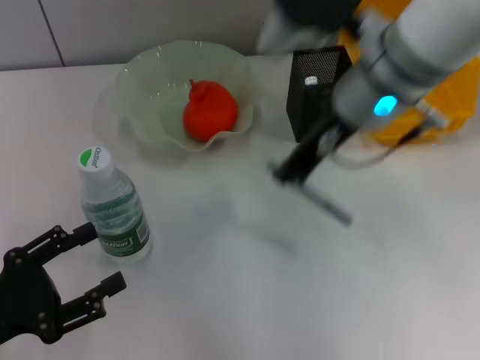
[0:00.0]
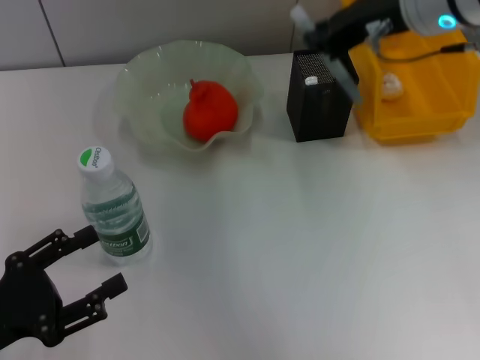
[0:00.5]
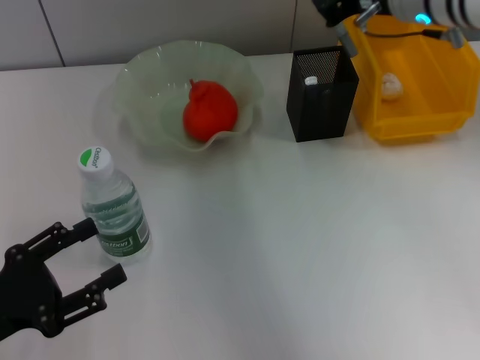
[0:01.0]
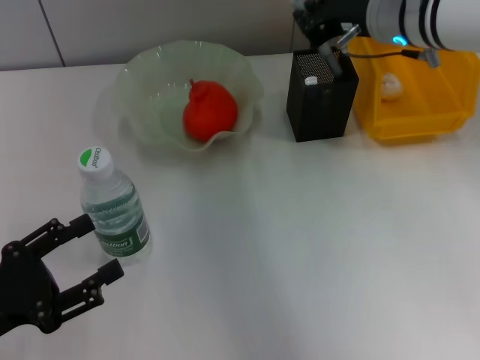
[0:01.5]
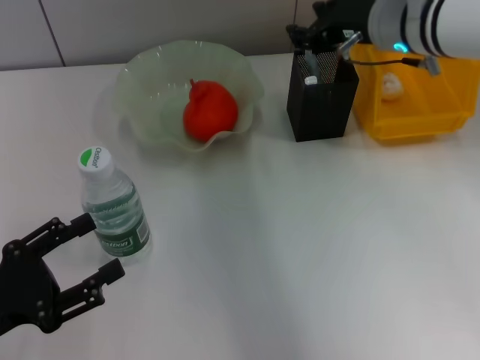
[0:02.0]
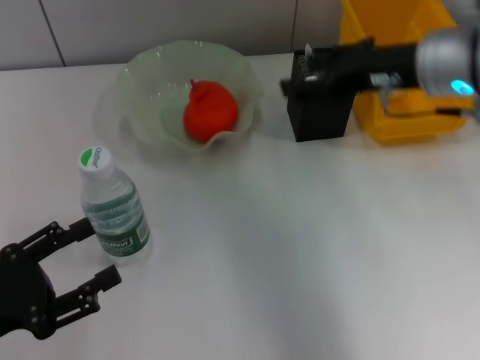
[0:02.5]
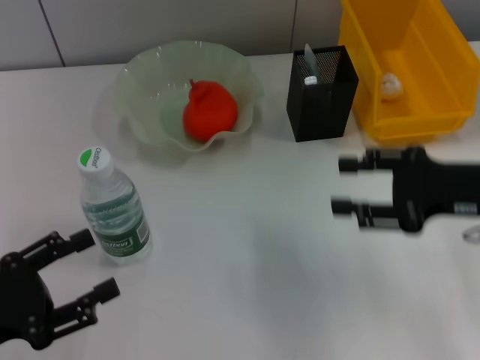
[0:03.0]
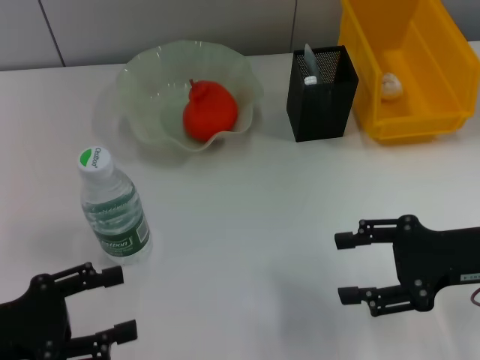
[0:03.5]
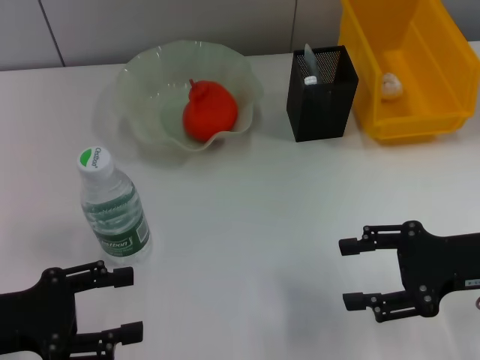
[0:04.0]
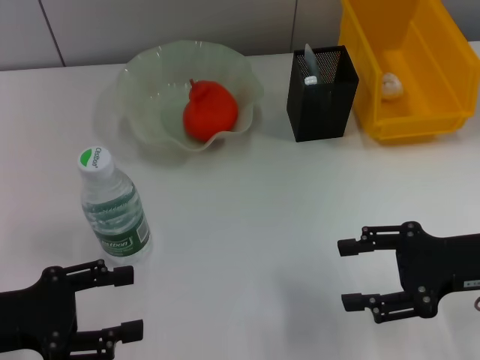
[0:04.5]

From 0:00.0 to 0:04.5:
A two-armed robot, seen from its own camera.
Step, from 0:00.0 to 0:02.0: Place the gray glue into the pen holder with the right hand.
From 0:00.0 to 0:02.0: The right gripper shifts approximately 10 cm forward and to the right.
From 0:02.0 to 0:04.5: The right gripper moves backward, to the right and downward, some 25 cm, and opens up.

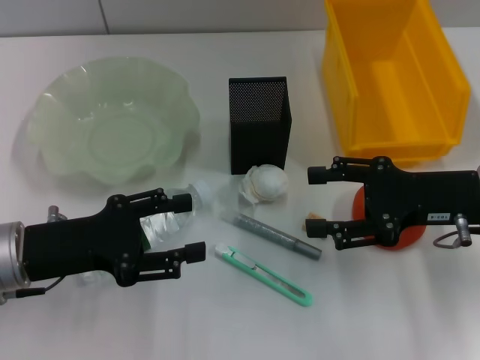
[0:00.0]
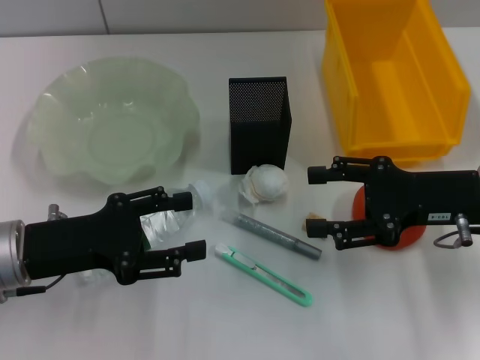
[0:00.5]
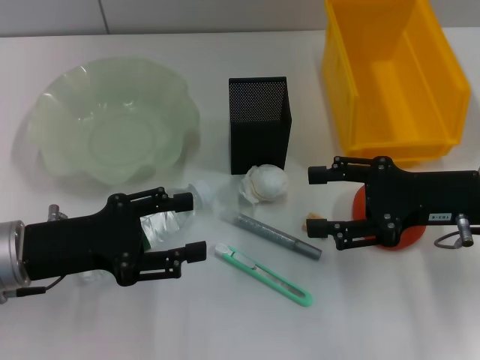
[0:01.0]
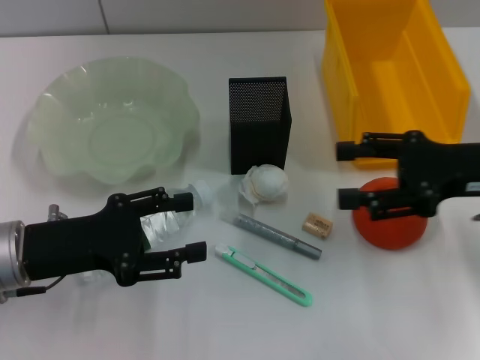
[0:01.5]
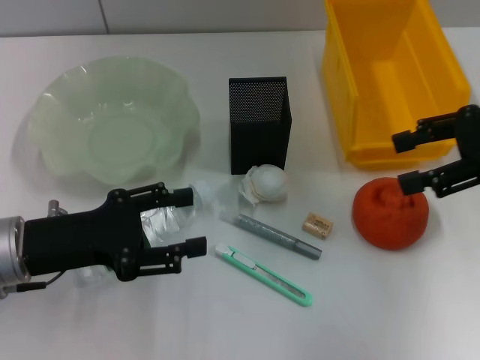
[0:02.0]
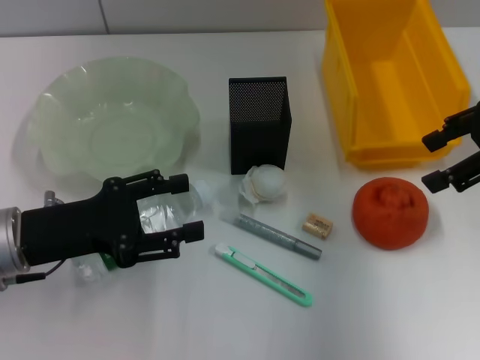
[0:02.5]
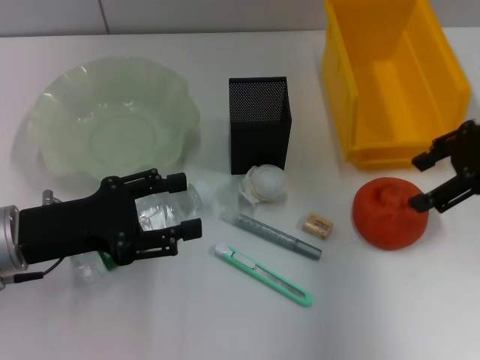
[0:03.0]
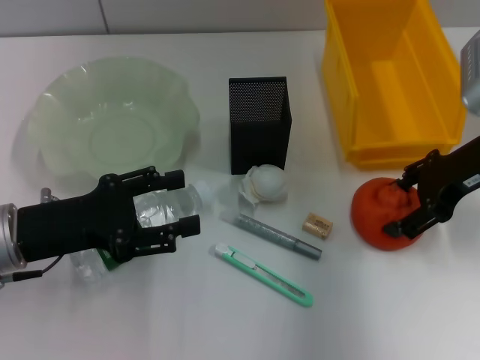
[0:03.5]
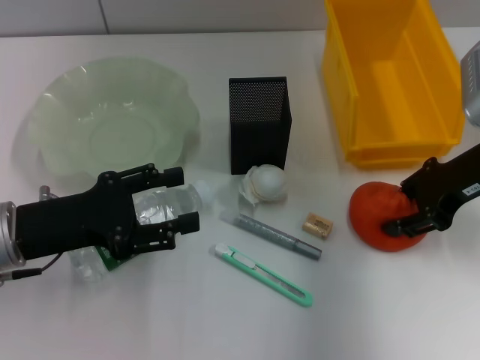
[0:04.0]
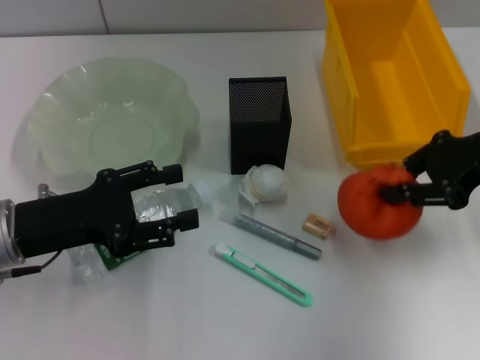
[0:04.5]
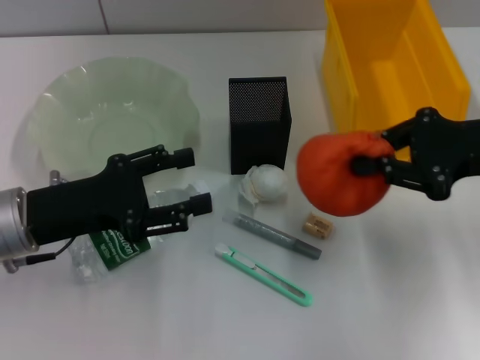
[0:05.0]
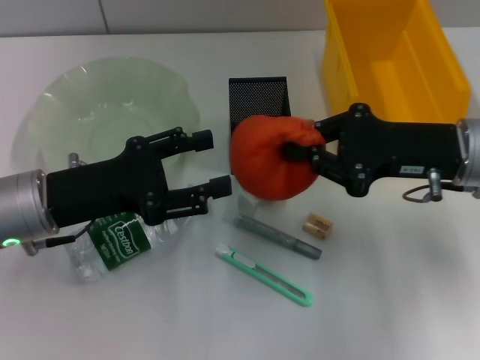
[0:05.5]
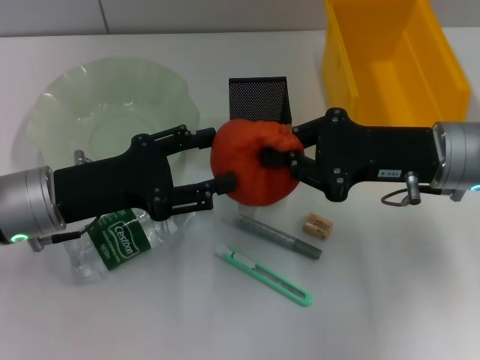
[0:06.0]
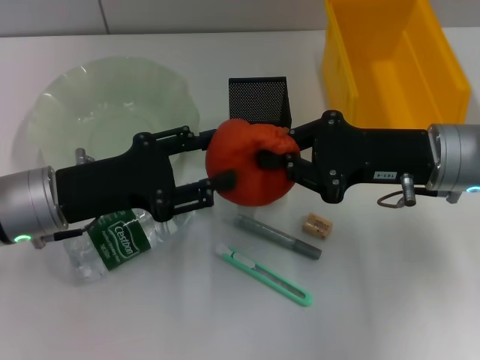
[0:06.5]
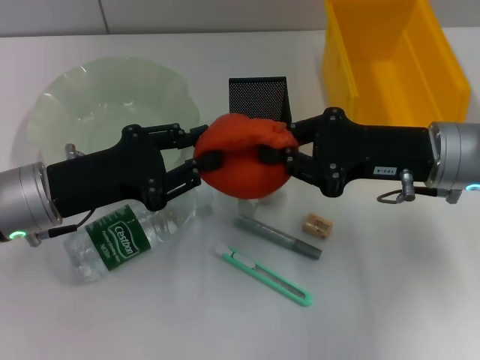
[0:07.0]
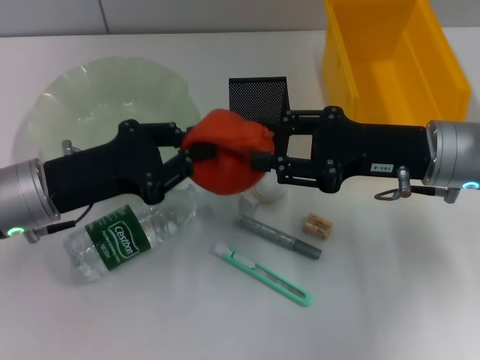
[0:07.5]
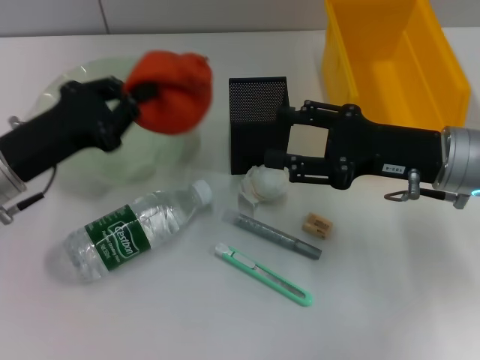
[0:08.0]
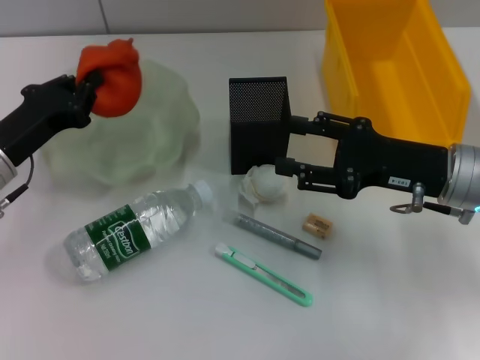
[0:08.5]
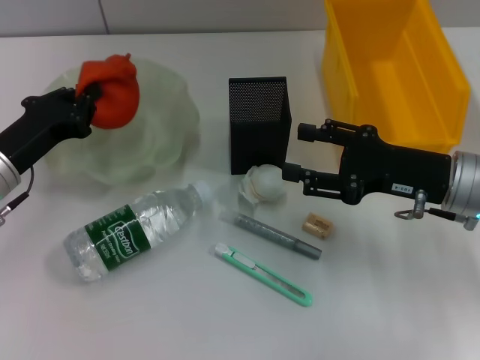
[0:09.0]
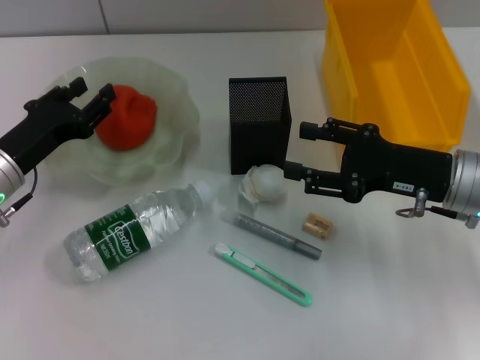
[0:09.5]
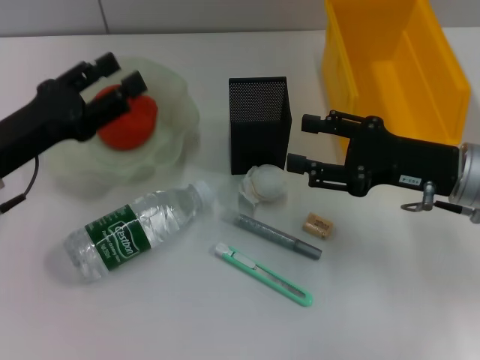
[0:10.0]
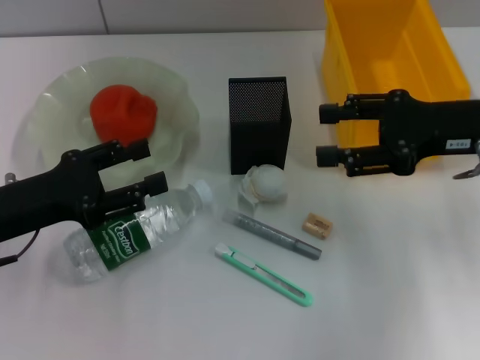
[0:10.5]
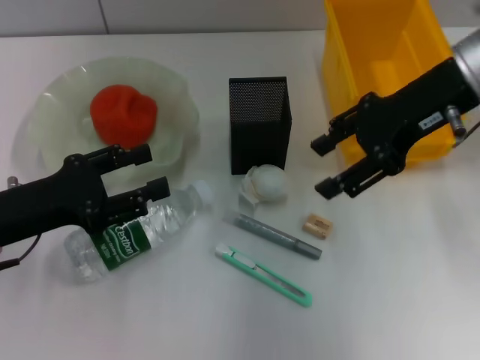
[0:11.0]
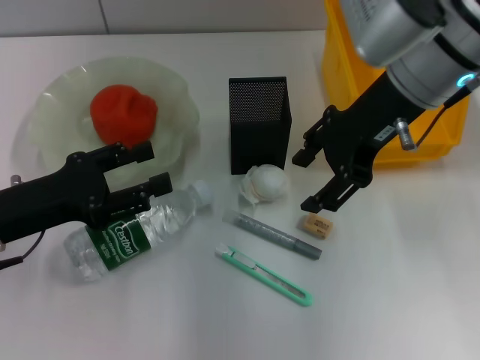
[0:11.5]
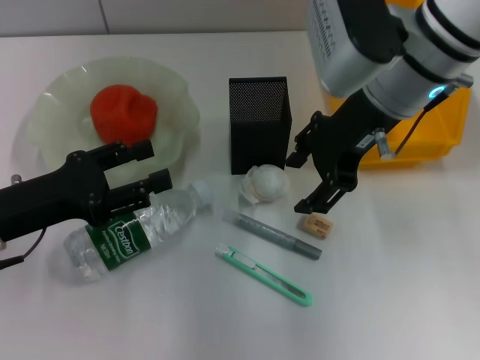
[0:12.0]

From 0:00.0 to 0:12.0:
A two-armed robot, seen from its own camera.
Step, from 0:00.0 to 0:04.0: Grab the orange with the right hand.
Step, from 0:04.5 to 0:07.5: Pass the orange from the right hand to the left hand.
Step, from 0:08.0 to 0:09.0: Place the orange into the fruit bowl with the left hand.
From 0:00.0 to 0:02.0: The right gripper is displaced upward and to the right by some 10 cm.
From 0:02.0 to 0:04.0: The right gripper is displaced downward by some 5 cm.
From 0:04.0 to 0:06.0: The right gripper is displaced to the left by about 5 cm, and closes up.
From 0:06.0 to 0:08.0: The right gripper opens its fingers. The left gripper closes its fingers.
From 0:08.0 to 0:10.0: The left gripper opens up.
From 0:10.0 to 0:12.0: The right gripper travels upward, to the left and forward by approximately 15 cm.

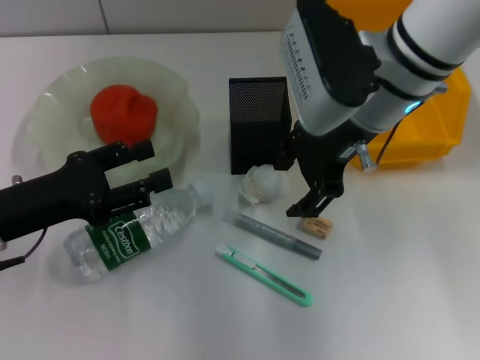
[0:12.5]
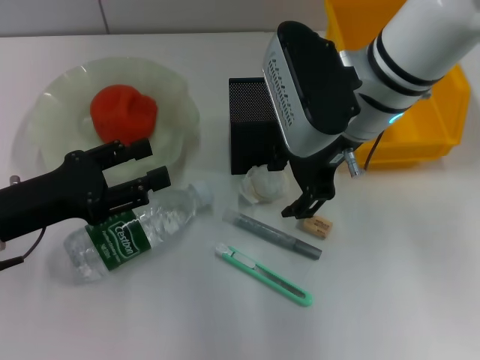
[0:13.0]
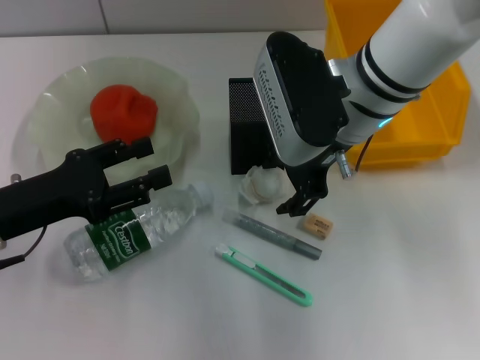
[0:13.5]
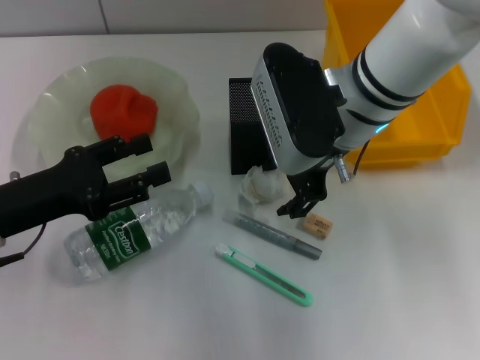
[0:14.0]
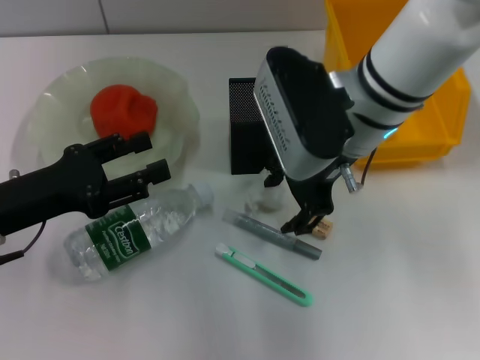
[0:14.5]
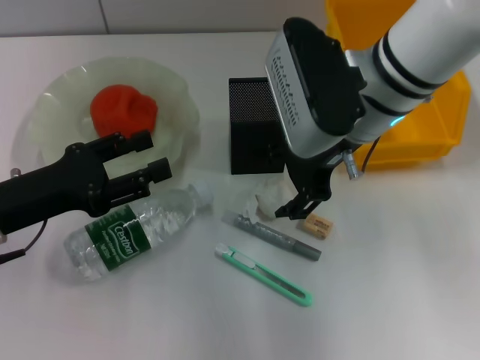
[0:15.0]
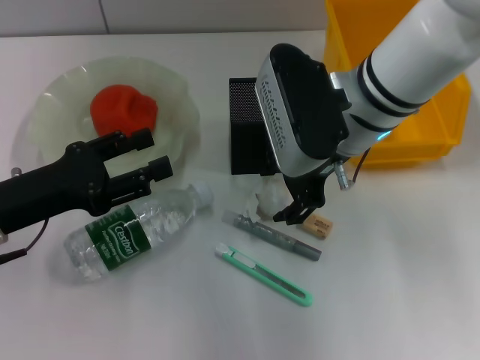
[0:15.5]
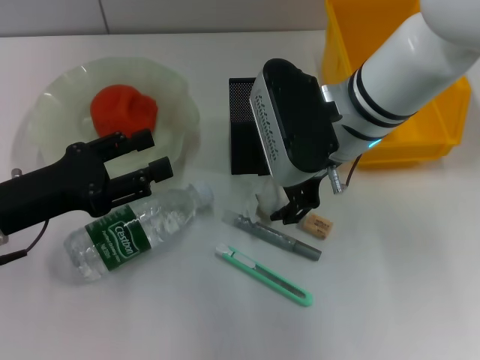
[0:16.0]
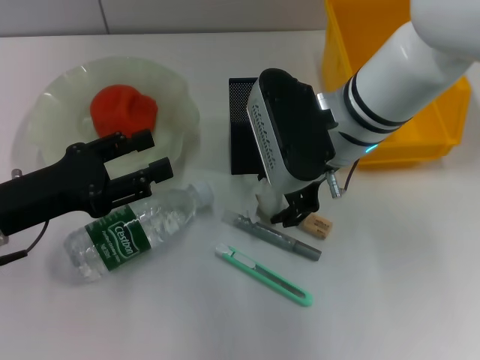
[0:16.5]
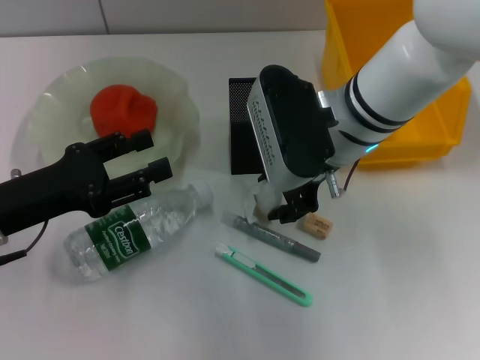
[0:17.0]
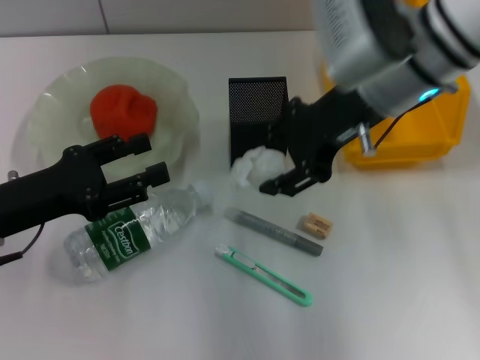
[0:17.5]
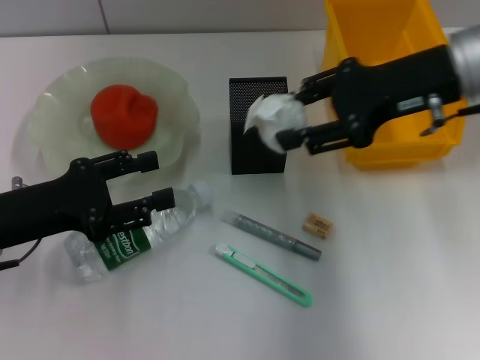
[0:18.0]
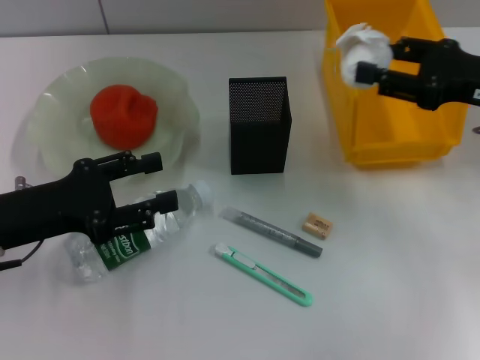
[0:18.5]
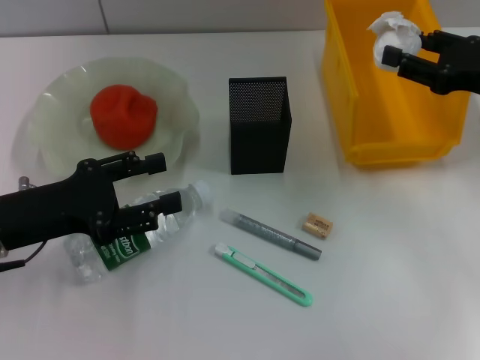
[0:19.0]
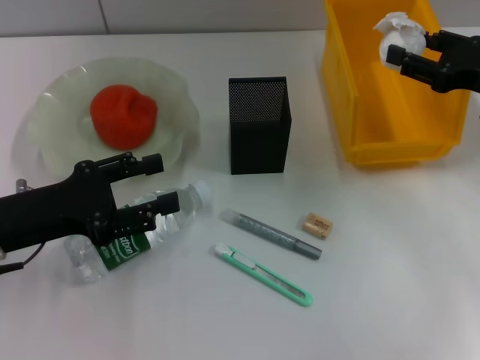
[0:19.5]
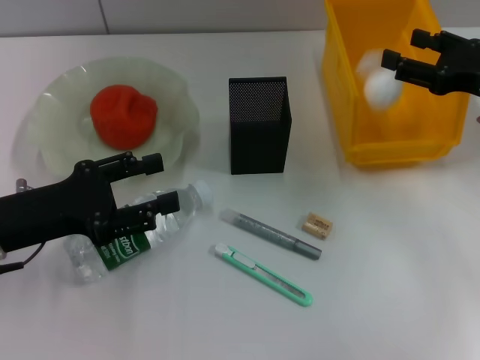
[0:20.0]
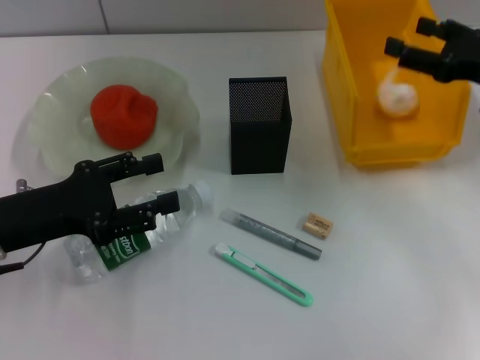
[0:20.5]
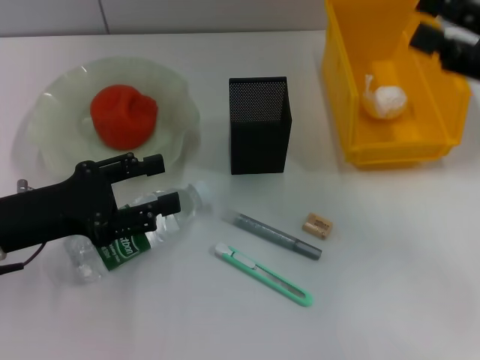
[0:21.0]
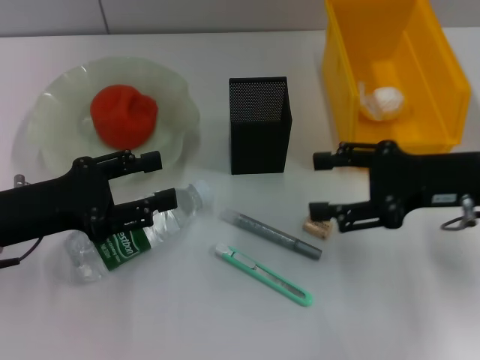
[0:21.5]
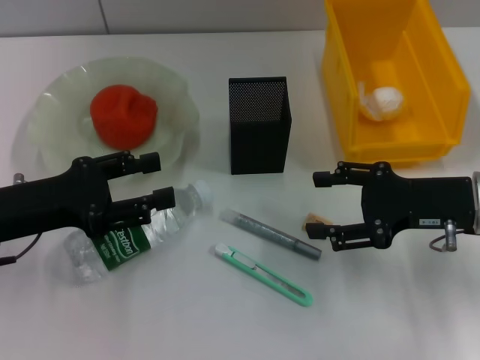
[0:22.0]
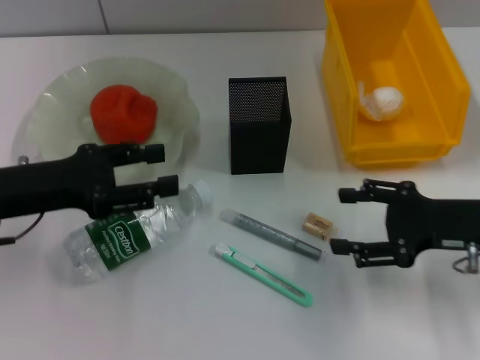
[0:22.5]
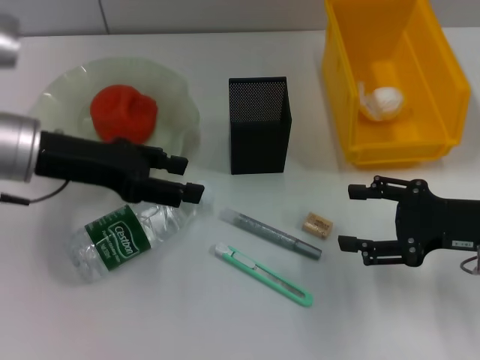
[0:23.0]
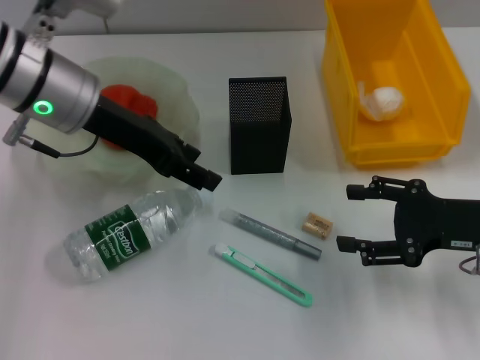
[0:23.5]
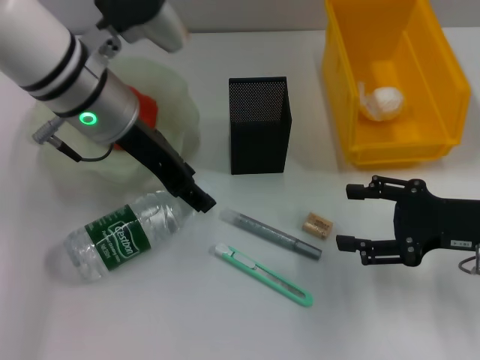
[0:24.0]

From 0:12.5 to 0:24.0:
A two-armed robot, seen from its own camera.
Step, from 0:12.5 to 0:16.5: Grab the paper ball with the right hand.
Step, from 0:17.0 to 0:21.0: Place the paper ball into the trash can with the right hand.
From 0:12.5 to 0:16.5: The grippers stay close to where they were, moving slightly.
From 0:16.5 to 0:18.5: The right gripper travels to the right by roughly 20 cm.
From 0:18.5 to 0:20.0: There are only small adjustments of the grippers.
From 0:20.0 to 0:22.0: The right gripper is displaced backward and to the left by approximately 10 cm.
From 0:22.0 to 0:24.0: The left gripper shifts approximately 20 cm to the right, forward and upward.
